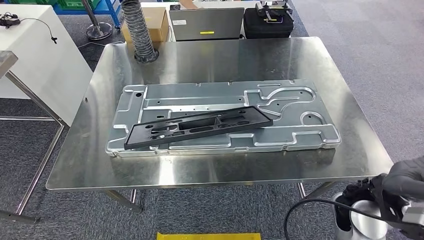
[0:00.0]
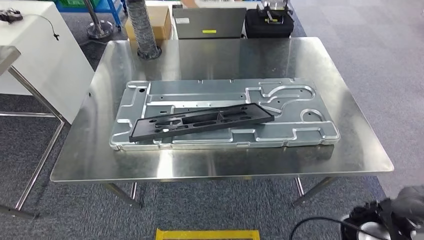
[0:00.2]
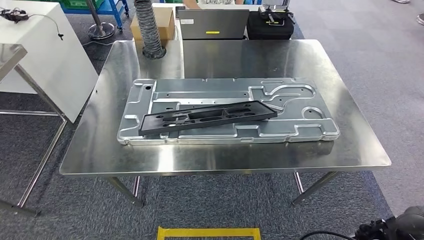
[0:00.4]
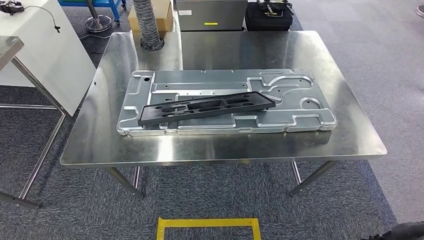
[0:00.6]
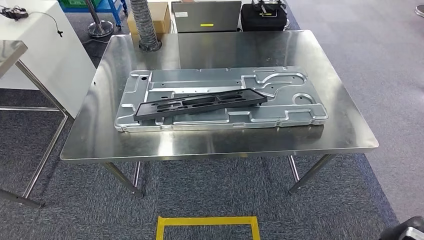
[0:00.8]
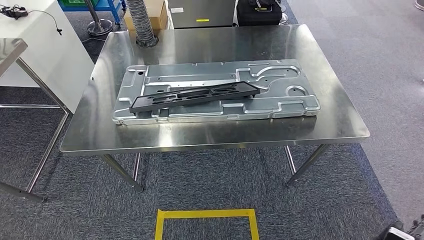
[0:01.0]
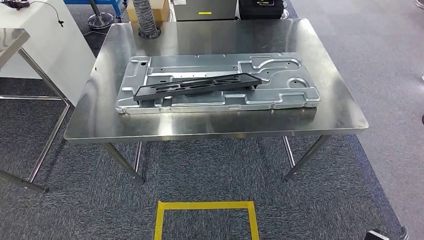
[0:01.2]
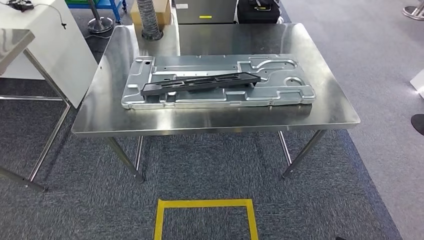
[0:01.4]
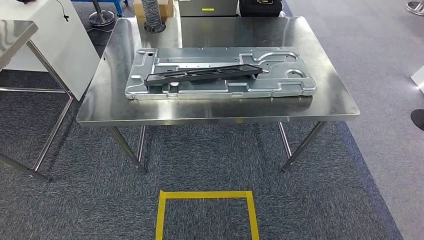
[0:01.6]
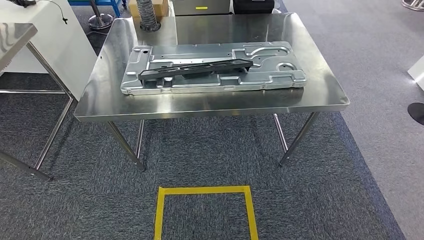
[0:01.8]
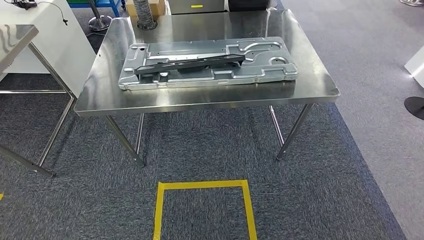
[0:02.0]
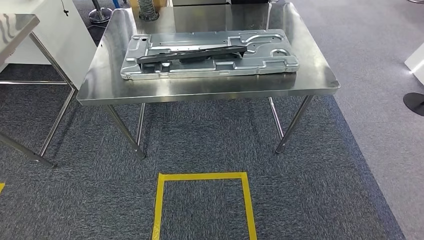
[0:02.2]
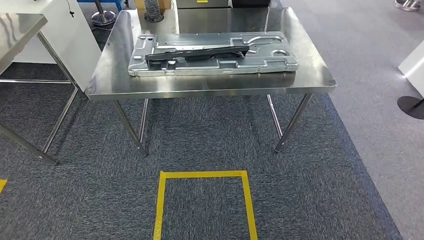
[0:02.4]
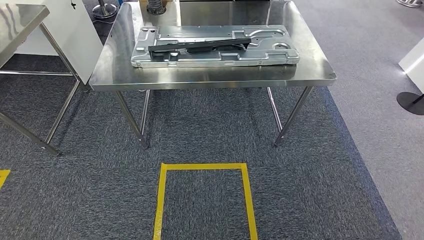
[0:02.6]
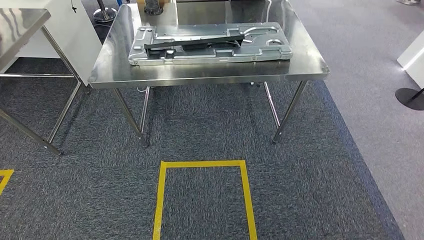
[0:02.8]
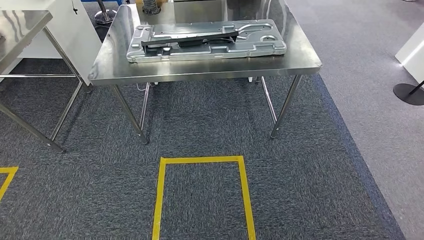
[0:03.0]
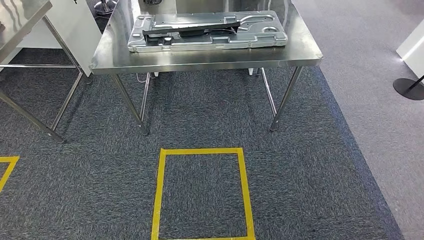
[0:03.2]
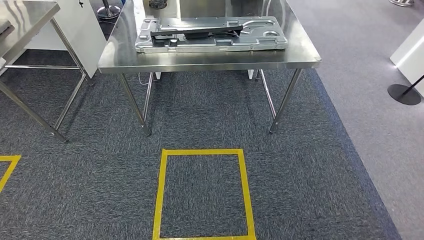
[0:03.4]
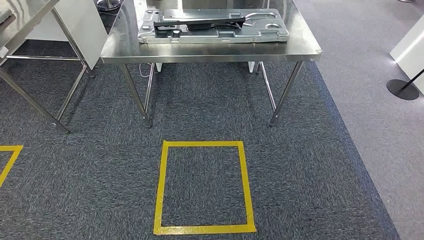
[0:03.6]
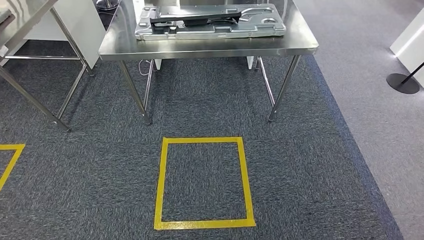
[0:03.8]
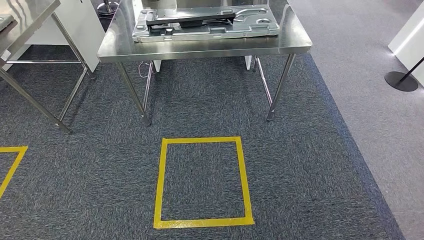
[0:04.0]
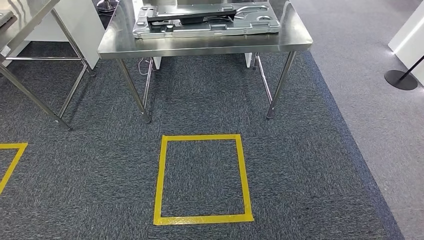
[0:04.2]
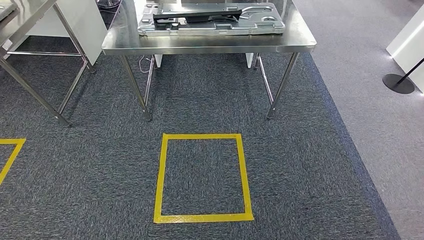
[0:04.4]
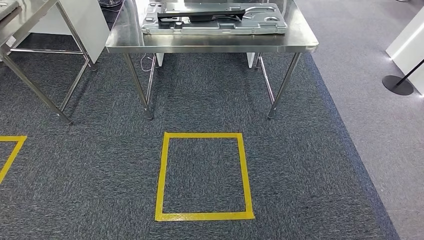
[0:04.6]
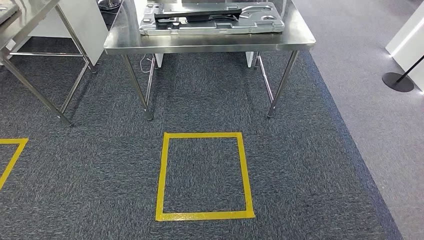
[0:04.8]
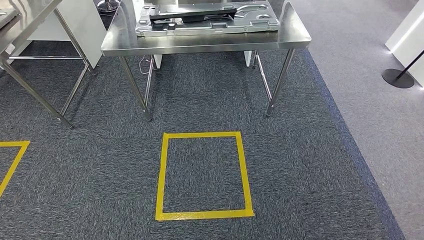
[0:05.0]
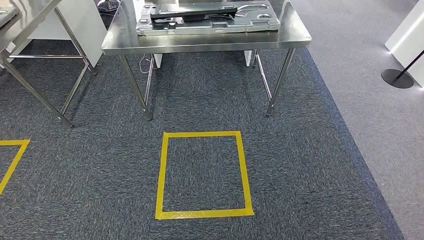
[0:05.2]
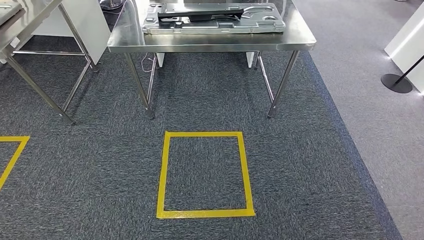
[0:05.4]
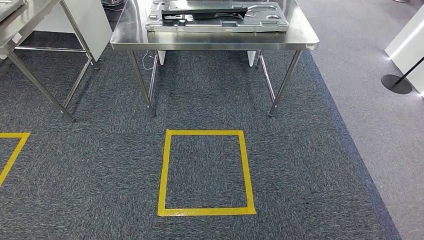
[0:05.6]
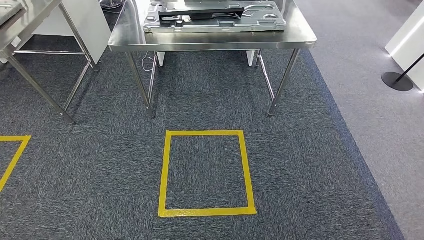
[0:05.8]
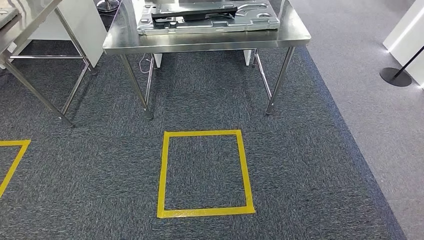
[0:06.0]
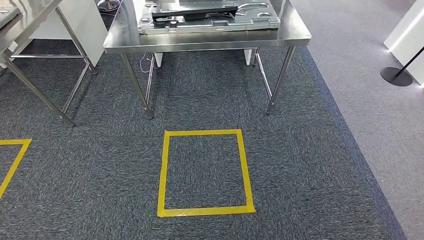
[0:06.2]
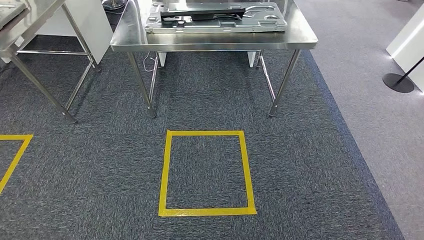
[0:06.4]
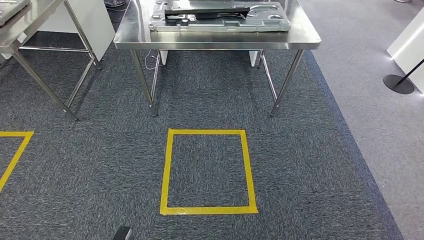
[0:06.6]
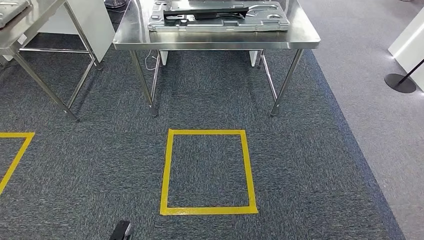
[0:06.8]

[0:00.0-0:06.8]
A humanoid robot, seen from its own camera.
Step, 0:00.0 to 0:06.8: Return to the initial position at the shelf.
0:04.0 to 0:05.4: The left hand is displaced backward by about 5 cm.
0:05.4 to 0:06.8: The right hand goes forward and backward, some 15 cm each way, reversing 2 times. The left hand moves forward and backward over some 15 cm, changing direction 2 times.
